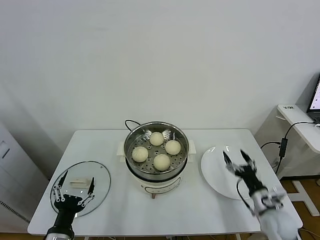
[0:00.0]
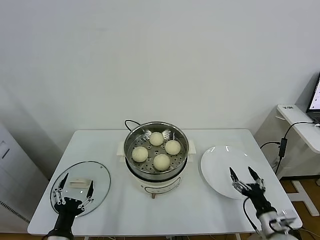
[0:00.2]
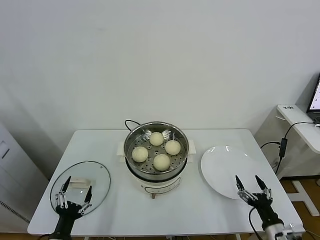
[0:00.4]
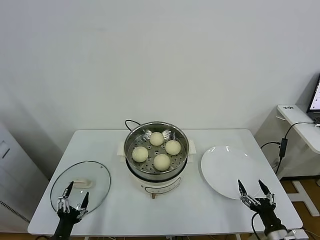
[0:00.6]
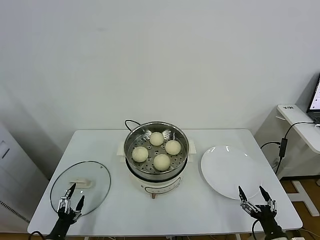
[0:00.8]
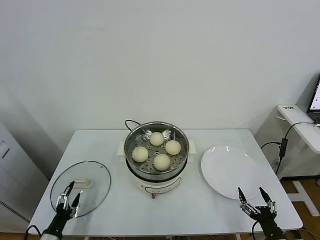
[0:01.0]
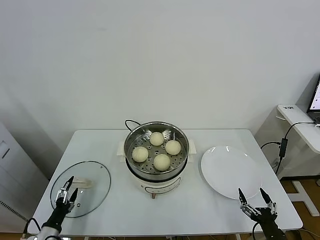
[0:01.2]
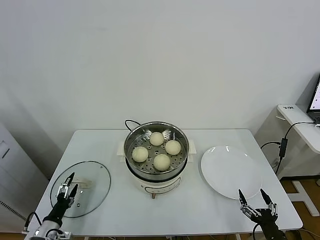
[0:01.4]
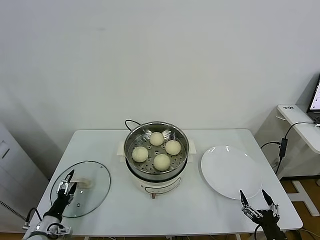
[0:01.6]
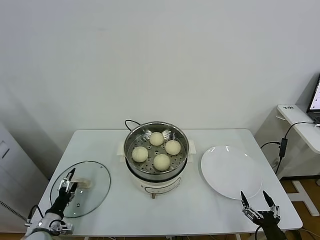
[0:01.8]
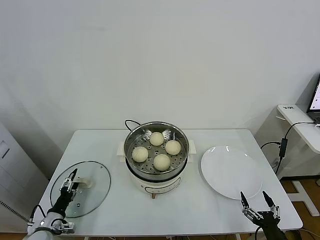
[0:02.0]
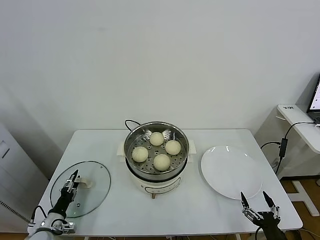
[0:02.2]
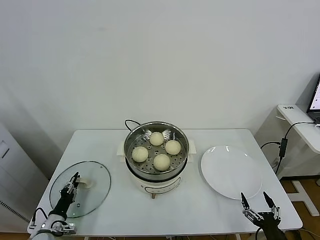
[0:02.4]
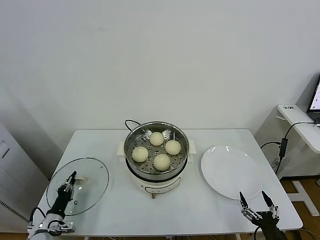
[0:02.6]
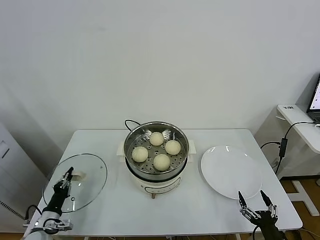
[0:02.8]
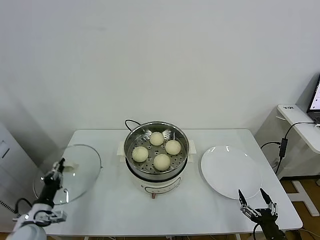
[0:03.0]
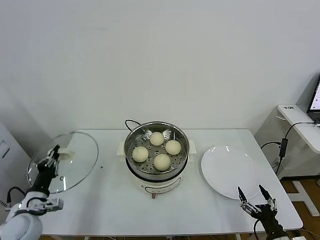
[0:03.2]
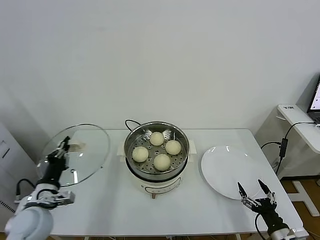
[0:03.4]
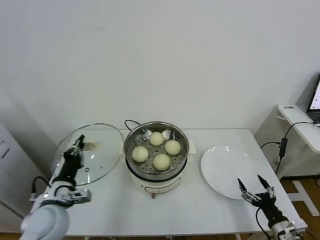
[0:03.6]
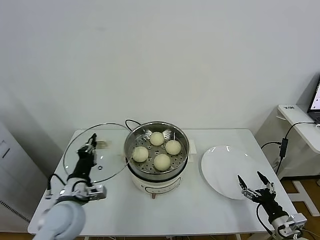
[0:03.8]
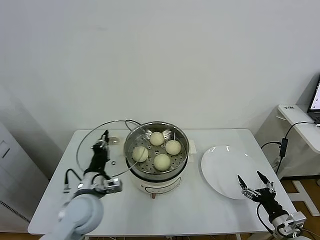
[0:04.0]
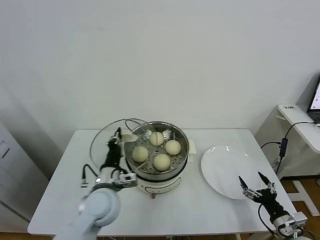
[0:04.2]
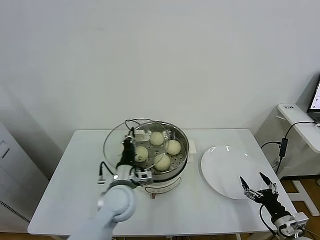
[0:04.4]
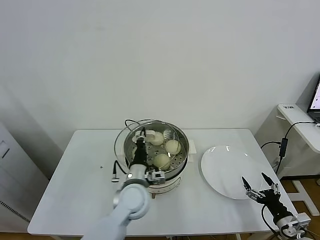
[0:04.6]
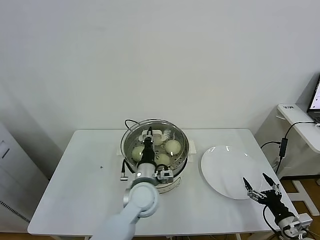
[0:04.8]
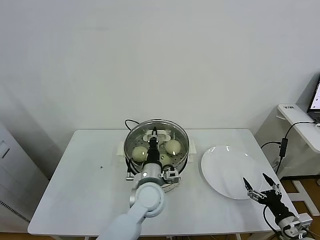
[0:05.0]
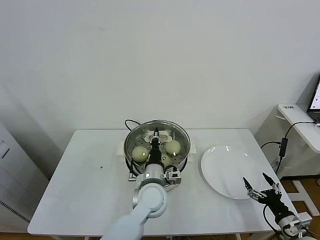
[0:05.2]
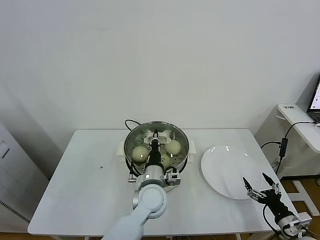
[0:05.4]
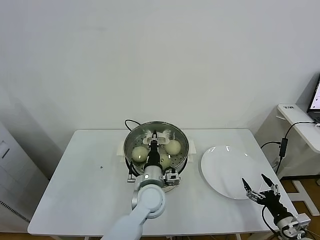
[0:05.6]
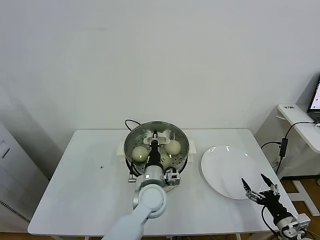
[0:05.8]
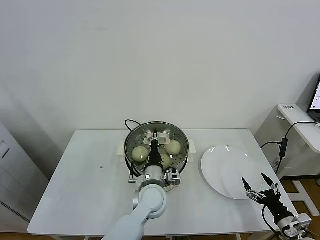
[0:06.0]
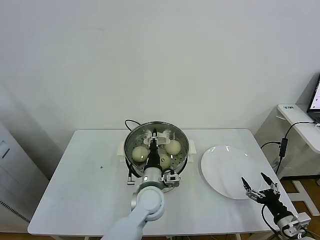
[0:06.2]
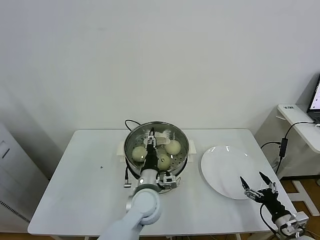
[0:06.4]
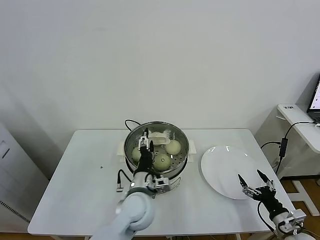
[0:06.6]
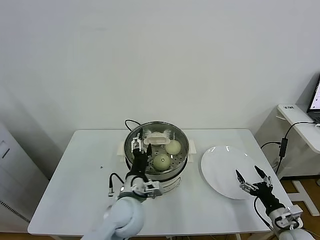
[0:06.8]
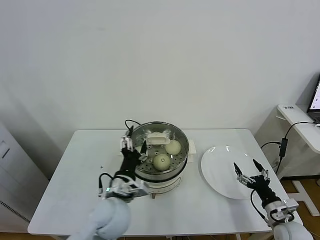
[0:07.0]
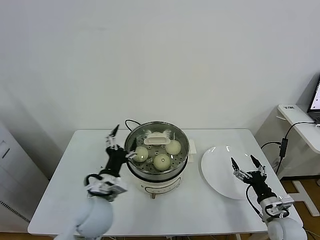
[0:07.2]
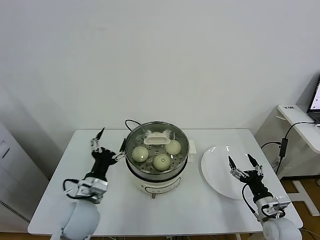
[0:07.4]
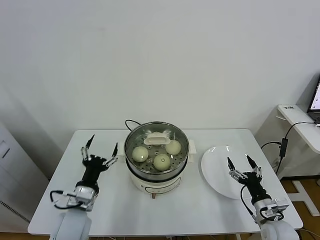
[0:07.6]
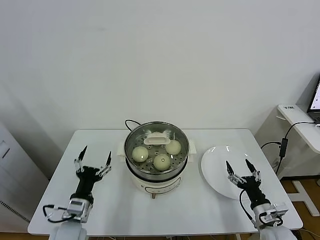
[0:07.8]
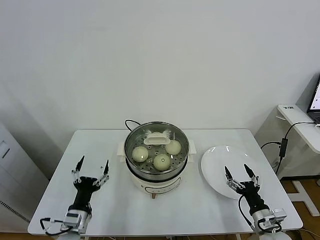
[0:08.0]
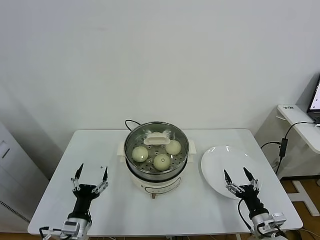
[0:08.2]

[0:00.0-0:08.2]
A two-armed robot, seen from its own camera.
Task of the whole recording: take steamed baozi put them in steamer.
Step, 0:00.0 to 0:02.6: Grasp the pot lid with left gripper.
Step, 0:02.8 to 0:06.6: Place the pot lid on the steamer with left gripper.
0:00.0 to 0:01.6: The left gripper heads to the left, downward and forward, covering approximately 20 cm. Meanwhile the right gripper is displaced backward by approximately 15 cm.
0:01.6 to 0:03.2: The left gripper is displaced upward by roughly 10 cm, and closes.
0:03.2 to 0:05.0: The right gripper shifts some 10 cm to the right and forward. Meanwhile the left gripper travels to the right by about 35 cm.
0:05.0 to 0:06.6: The left gripper opens its fingers.
0:06.6 to 0:08.2: The right gripper travels to the left by approximately 10 cm, while the left gripper travels to the left, backward and downward by some 25 cm.
